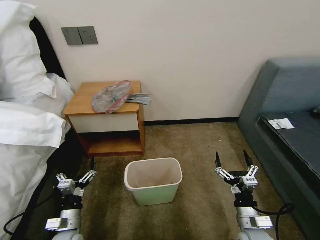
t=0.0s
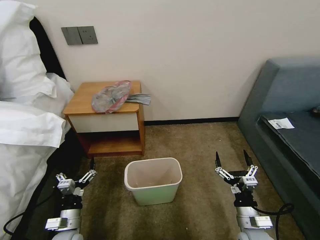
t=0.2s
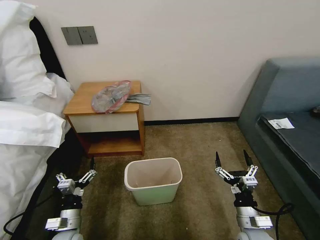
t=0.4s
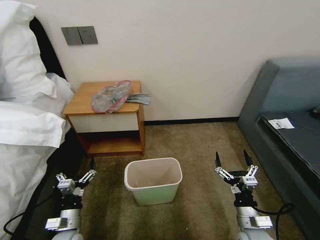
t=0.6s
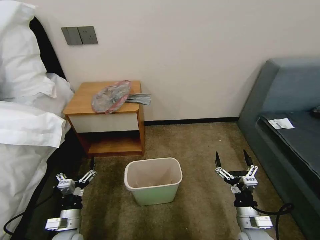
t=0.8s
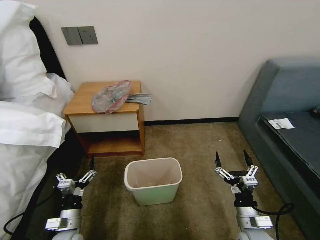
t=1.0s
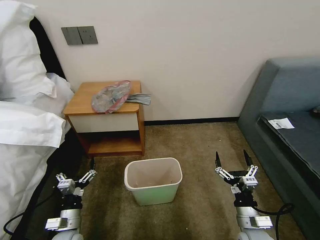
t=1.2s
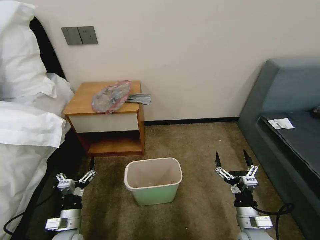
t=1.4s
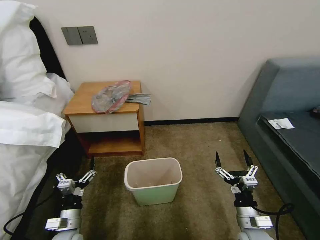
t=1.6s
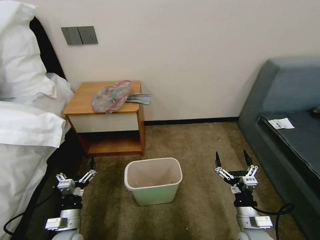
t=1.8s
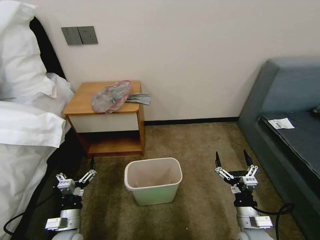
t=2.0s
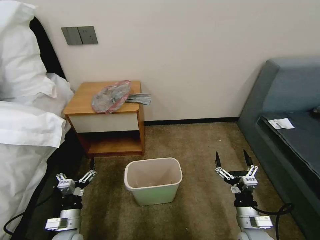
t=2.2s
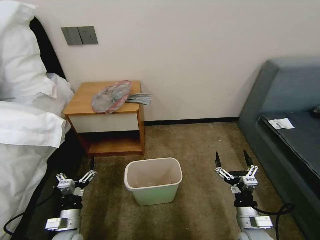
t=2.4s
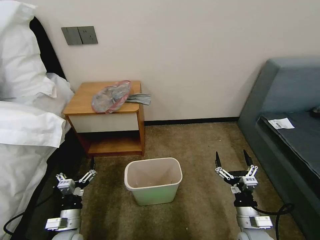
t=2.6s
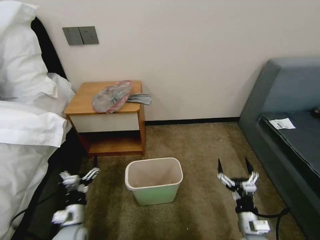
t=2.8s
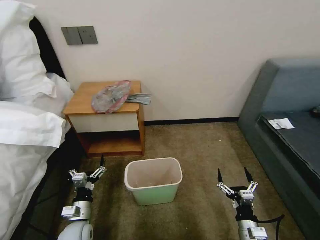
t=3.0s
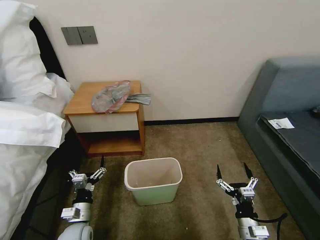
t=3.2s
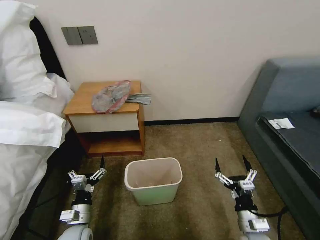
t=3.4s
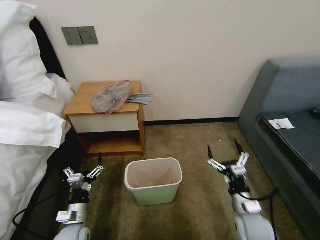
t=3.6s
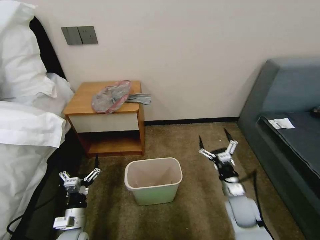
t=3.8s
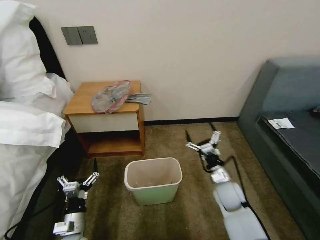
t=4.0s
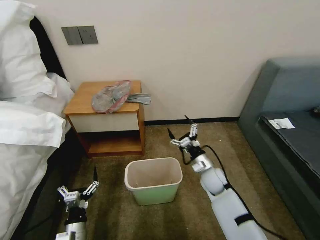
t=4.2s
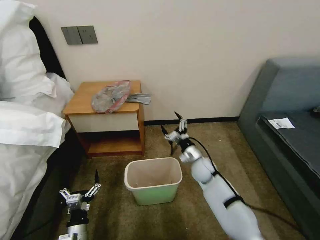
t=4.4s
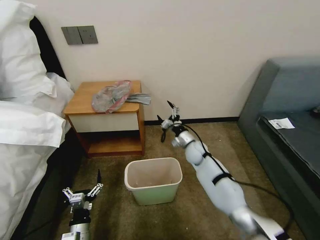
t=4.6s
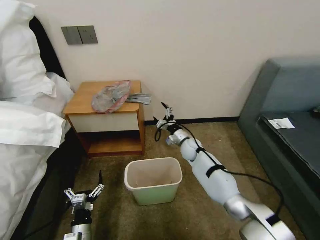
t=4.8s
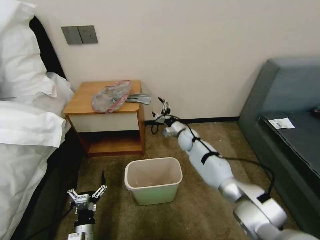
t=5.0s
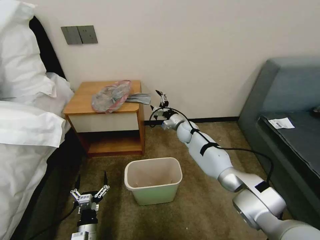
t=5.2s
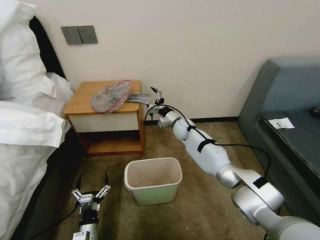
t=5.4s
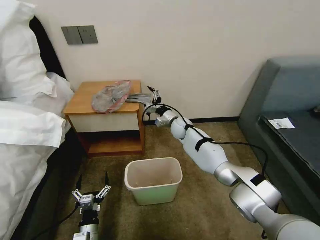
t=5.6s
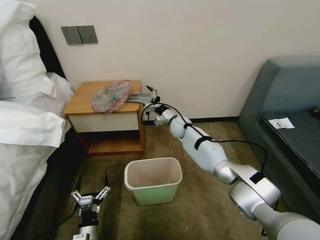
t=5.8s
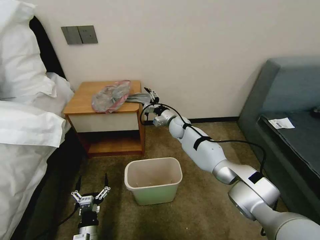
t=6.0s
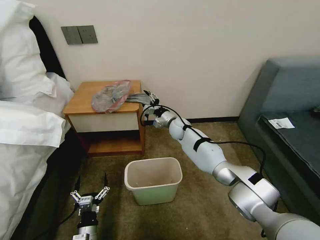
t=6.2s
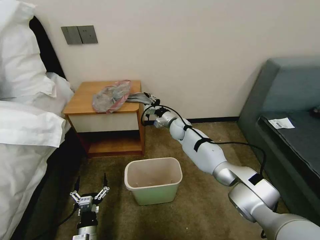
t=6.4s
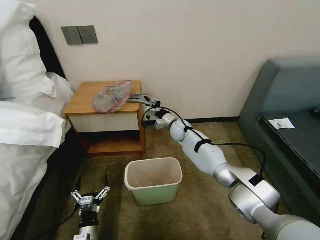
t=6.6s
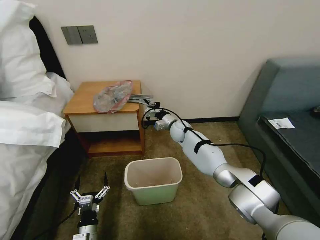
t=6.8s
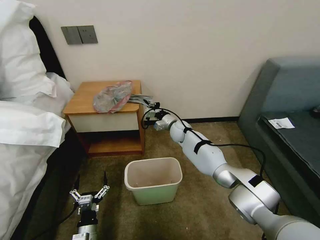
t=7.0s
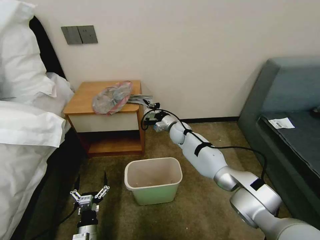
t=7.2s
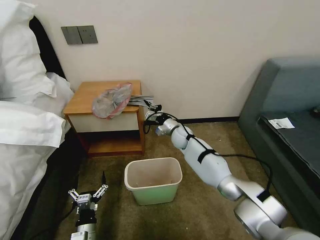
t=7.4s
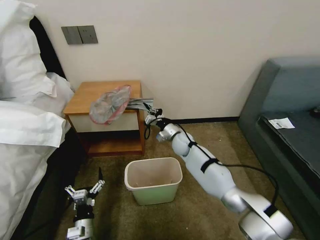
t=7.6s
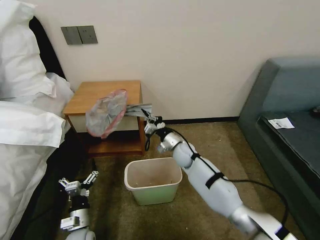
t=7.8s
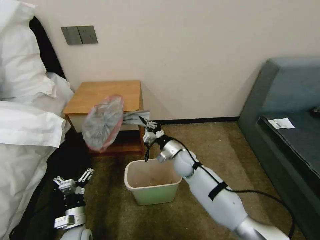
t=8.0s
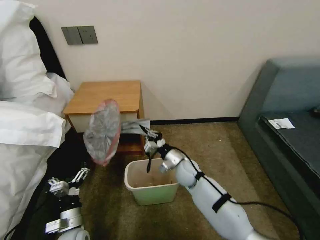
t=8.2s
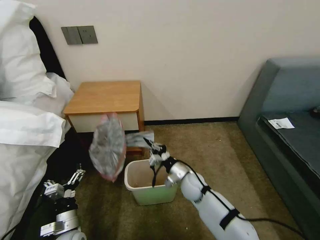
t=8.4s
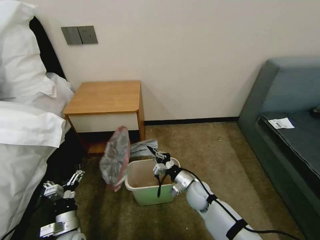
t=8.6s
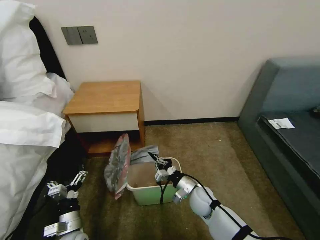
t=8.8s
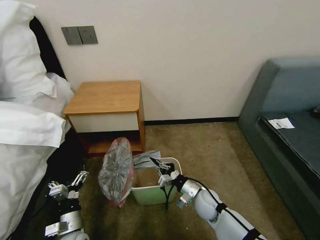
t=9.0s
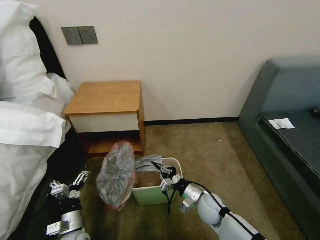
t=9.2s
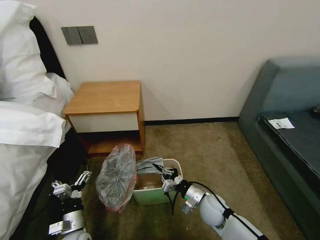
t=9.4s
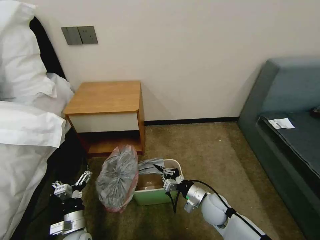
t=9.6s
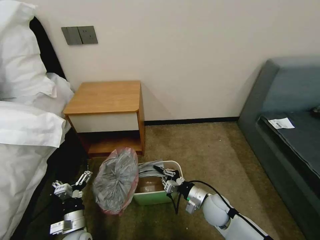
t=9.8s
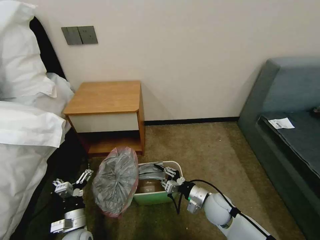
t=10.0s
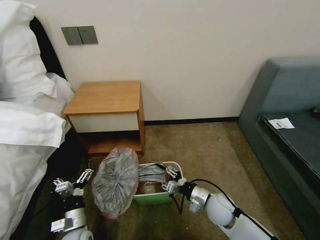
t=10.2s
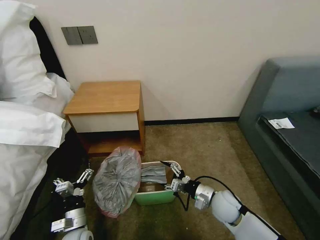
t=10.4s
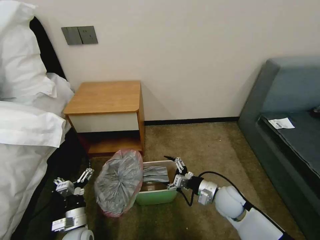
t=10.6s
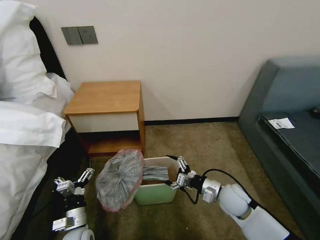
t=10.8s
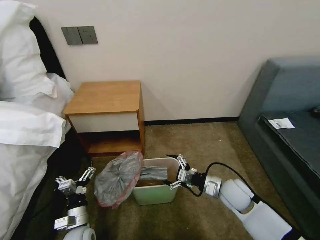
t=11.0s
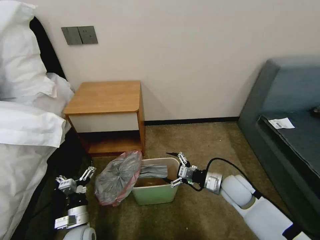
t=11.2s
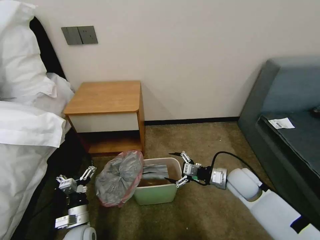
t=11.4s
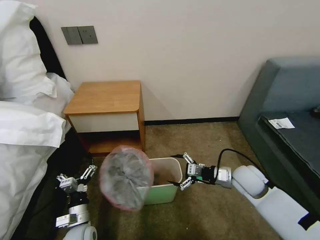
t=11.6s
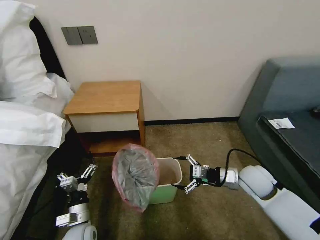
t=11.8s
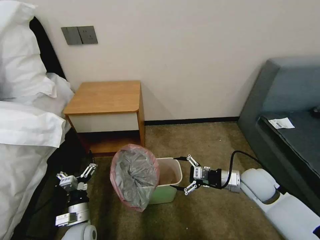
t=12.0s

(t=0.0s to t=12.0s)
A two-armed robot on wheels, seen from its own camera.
Task of the whole recording: Pick up the garbage bag from the table and place it over the trash can.
t=1.6s - t=3.0s: The right gripper is displaced downward by some 5 cm.
t=3.0s - t=4.4s: The right gripper is displaced forward and to the left by some 30 cm. Meanwhile the left gripper travels backward by about 5 cm.
t=4.4s - t=6.0s: The right gripper is displaced forward, to the left and upward by about 20 cm.
t=6.0s - t=7.6s: The right gripper heads backward, covering roughly 5 cm, and closes up.
t=7.6s - t=9.0s: The right gripper travels backward and downward by roughly 25 cm.
t=9.0s - t=10.4s: The right gripper is displaced to the right by roughly 5 cm, and opens up.
t=10.4s - t=12.0s: The right gripper travels upward and to the right by roughly 15 cm.

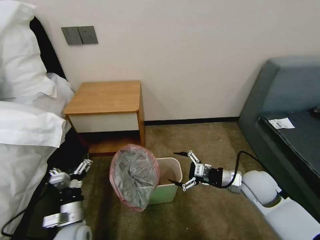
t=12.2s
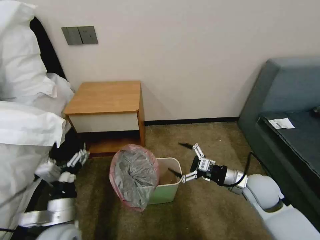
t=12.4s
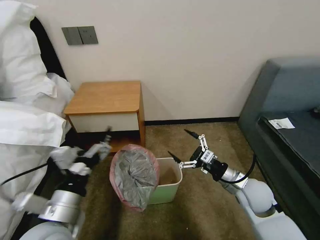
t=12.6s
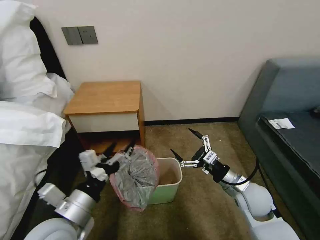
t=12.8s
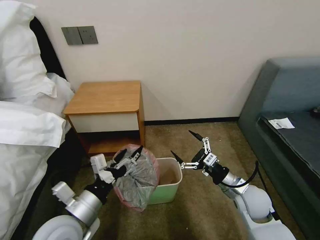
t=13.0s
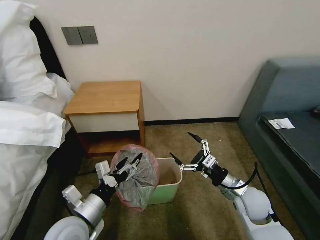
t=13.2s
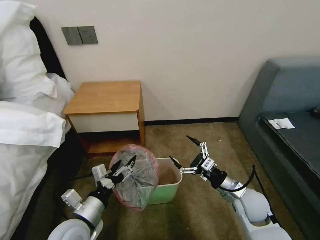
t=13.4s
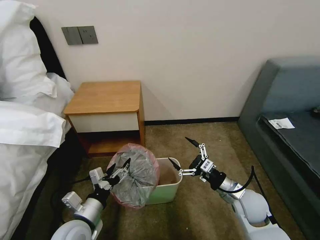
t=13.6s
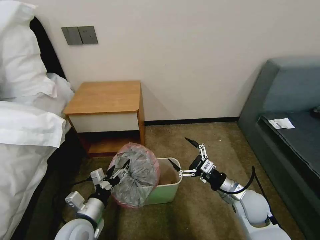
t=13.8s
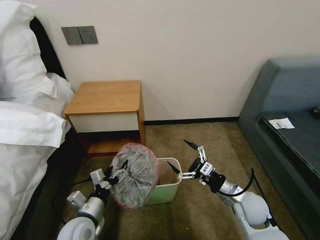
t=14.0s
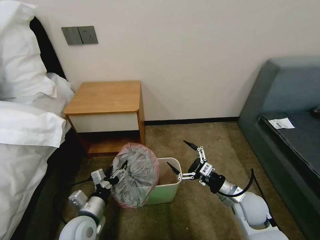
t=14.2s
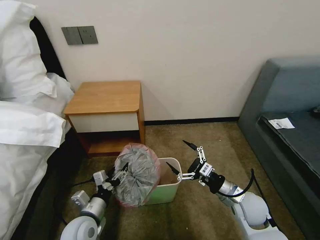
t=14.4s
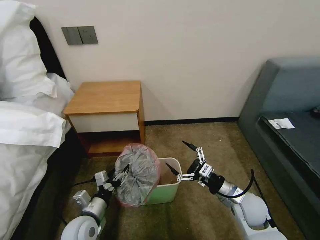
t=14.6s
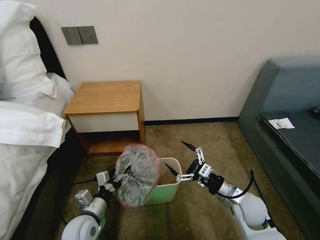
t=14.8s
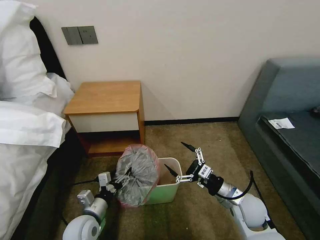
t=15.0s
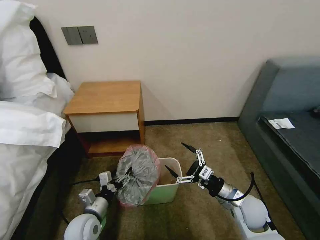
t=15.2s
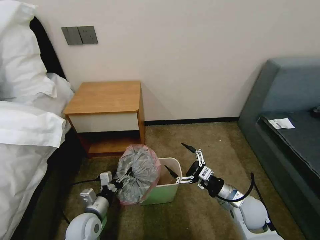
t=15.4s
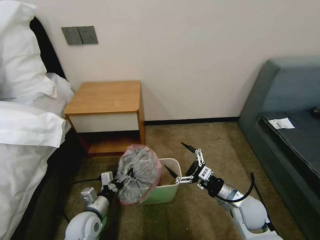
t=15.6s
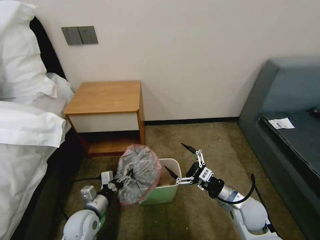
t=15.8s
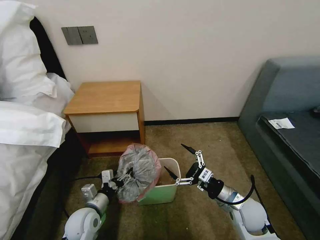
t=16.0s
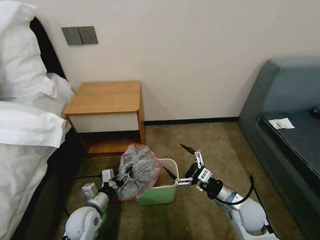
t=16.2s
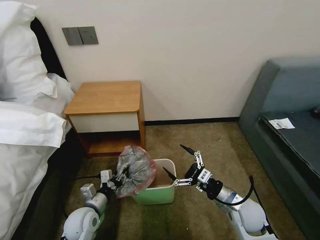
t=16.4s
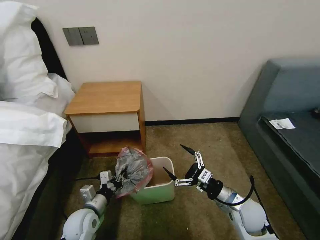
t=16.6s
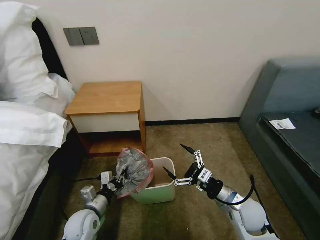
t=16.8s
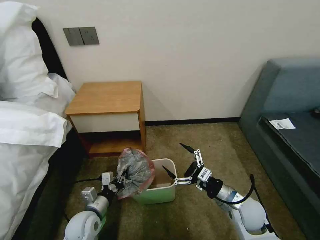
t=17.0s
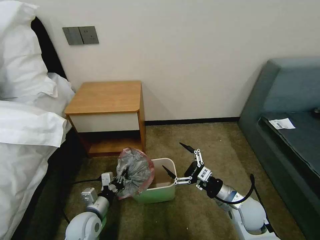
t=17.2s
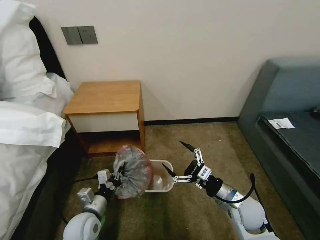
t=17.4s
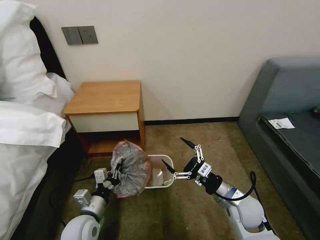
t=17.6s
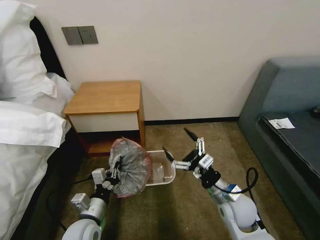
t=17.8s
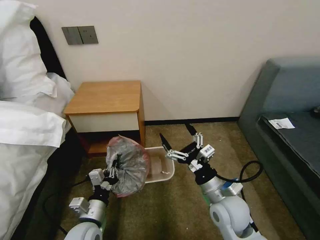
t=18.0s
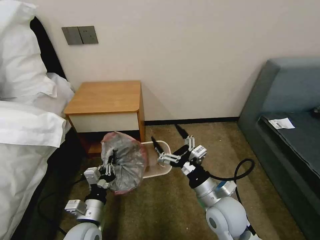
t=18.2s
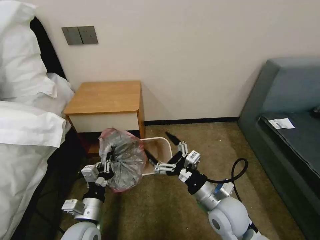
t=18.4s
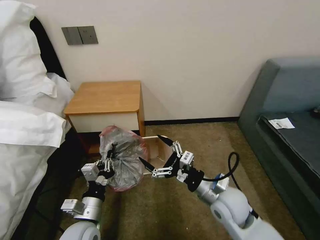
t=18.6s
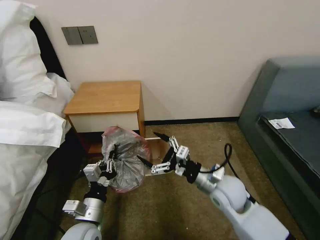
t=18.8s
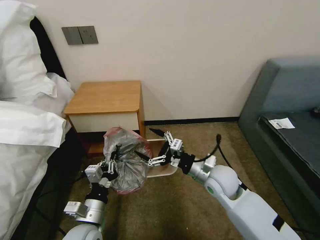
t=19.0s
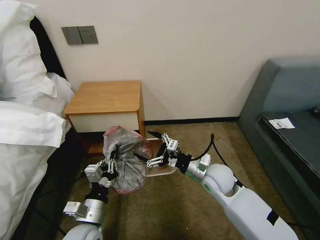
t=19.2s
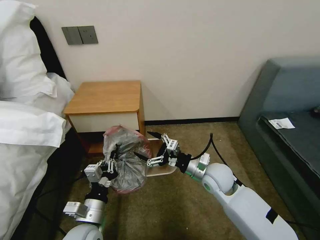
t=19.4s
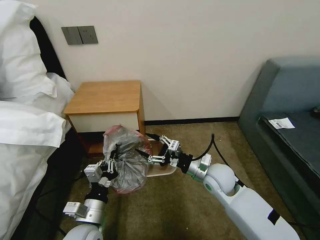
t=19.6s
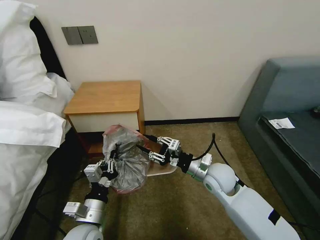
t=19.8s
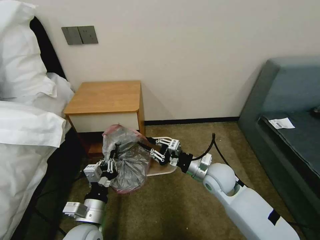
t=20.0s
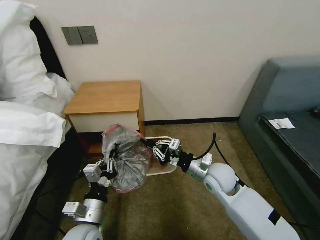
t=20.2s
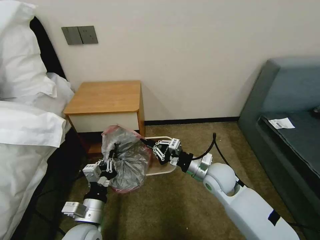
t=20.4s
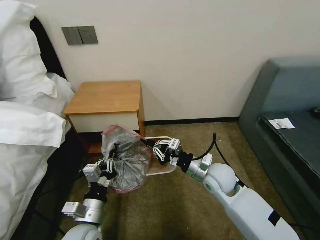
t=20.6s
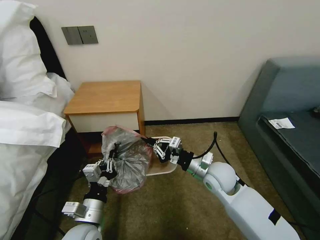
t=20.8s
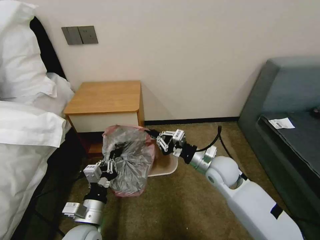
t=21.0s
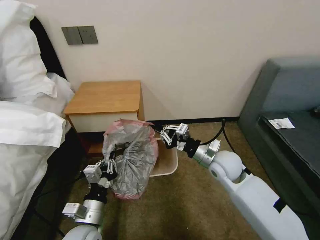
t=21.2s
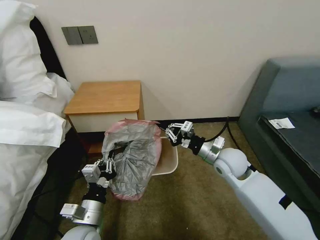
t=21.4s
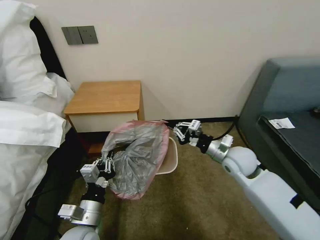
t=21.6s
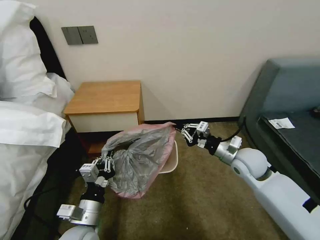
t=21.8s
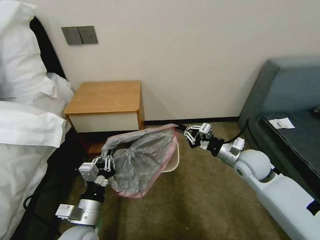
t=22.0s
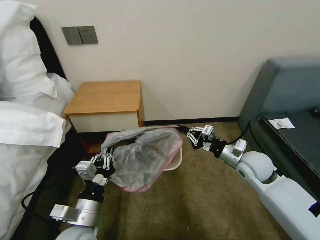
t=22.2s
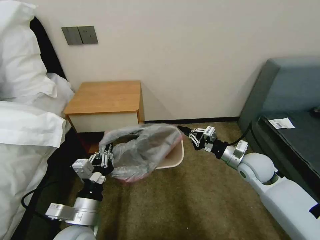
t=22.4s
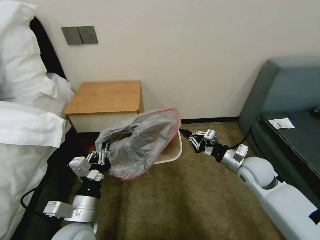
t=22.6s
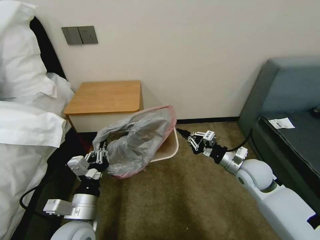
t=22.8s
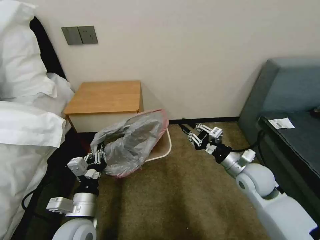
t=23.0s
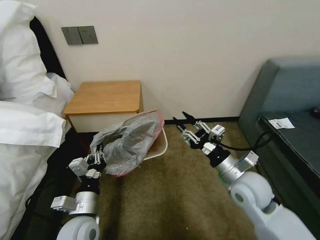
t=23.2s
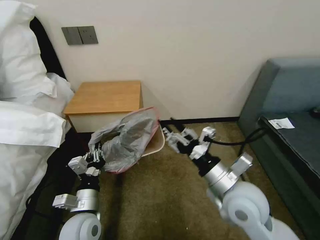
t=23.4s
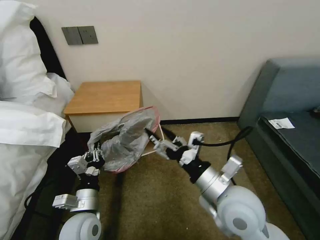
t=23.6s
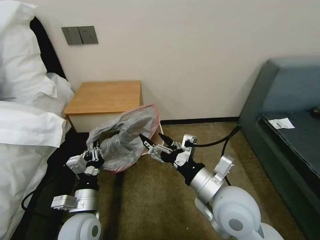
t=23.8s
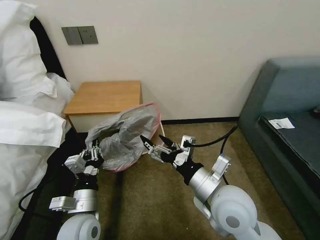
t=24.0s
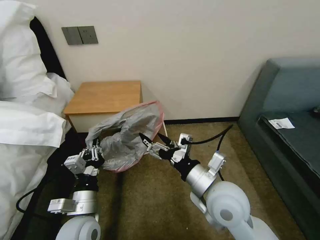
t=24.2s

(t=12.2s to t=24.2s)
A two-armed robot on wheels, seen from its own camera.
Task of the whole recording: Pick up the garbage bag from the table and place it over the trash can.
t=12.2s - t=13.8s: The left gripper moves about 20 cm upward and comes back. Meanwhile the right gripper ends up roughly 5 cm from where it was.
t=13.8s - t=15.2s: The left gripper heads downward, covering some 5 cm.
t=15.2s - t=16.6s: The left gripper closes its fingers.
t=16.6s - t=18.2s: The left gripper shifts by roughly 10 cm; the right gripper heads to the left and upward, covering approximately 10 cm.
t=18.2s - t=19.8s: The right gripper goes some 10 cm forward, and closes up.
t=19.8s - t=21.2s: The right gripper closes up.
t=21.2s - t=22.6s: The left gripper goes roughly 5 cm upward. Meanwhile the right gripper moves to the right, some 10 cm.
t=22.6s - t=24.2s: The right gripper travels to the left, backward and upward by some 20 cm, and opens its fingers.
